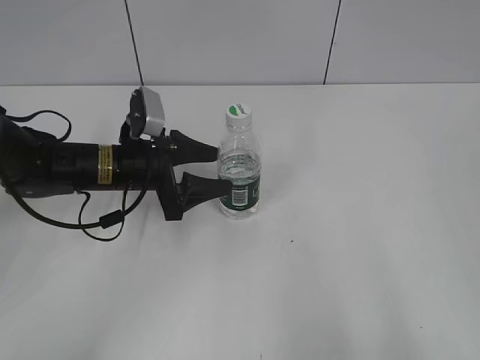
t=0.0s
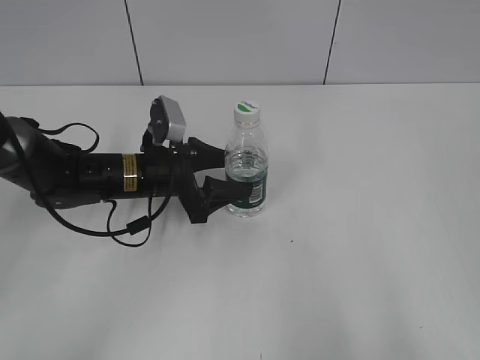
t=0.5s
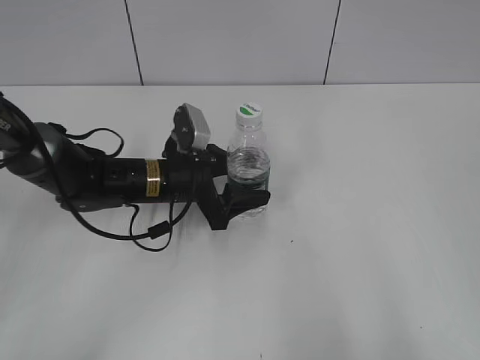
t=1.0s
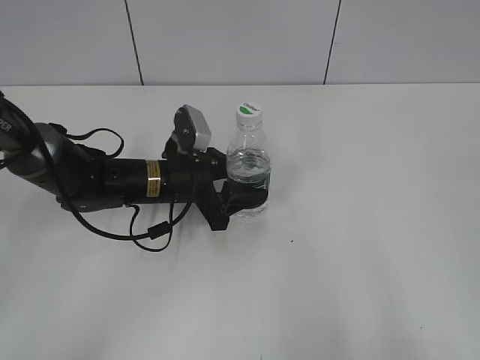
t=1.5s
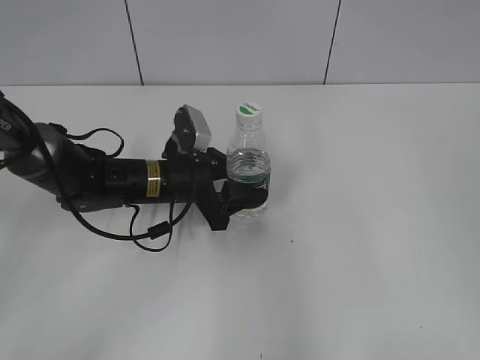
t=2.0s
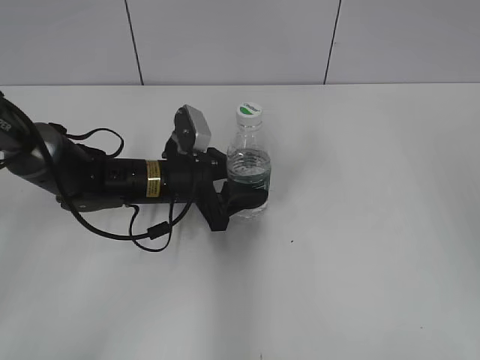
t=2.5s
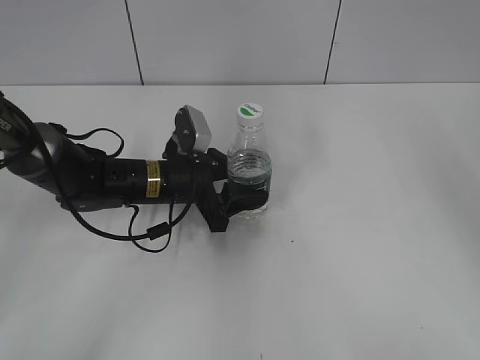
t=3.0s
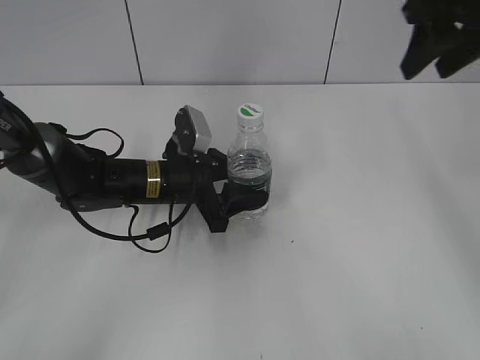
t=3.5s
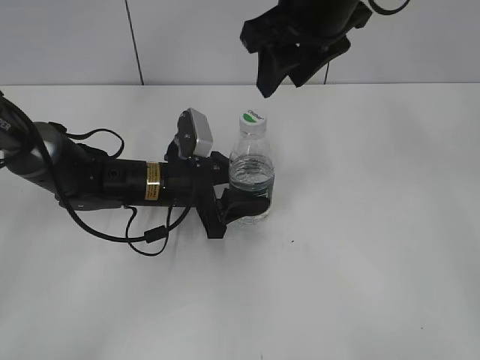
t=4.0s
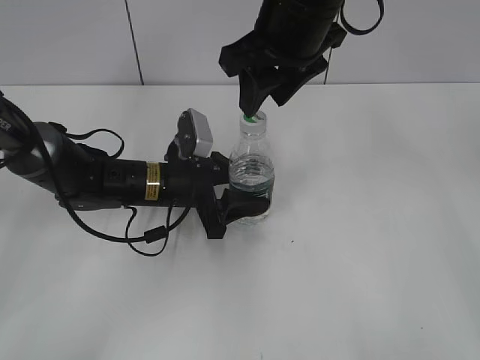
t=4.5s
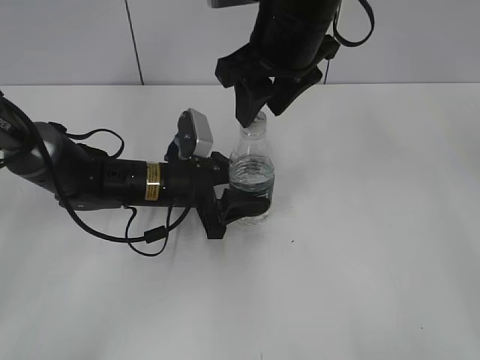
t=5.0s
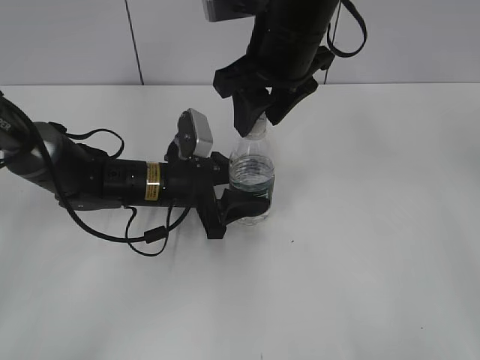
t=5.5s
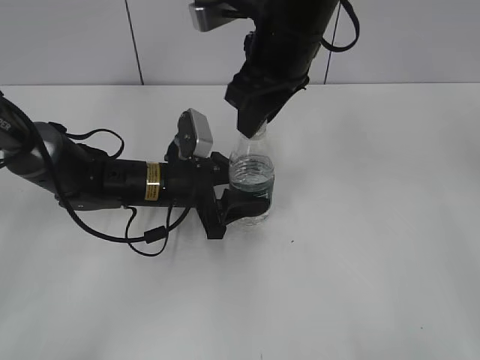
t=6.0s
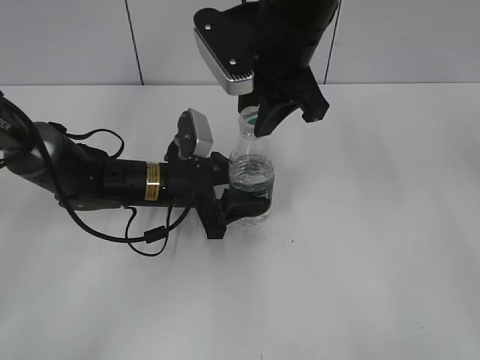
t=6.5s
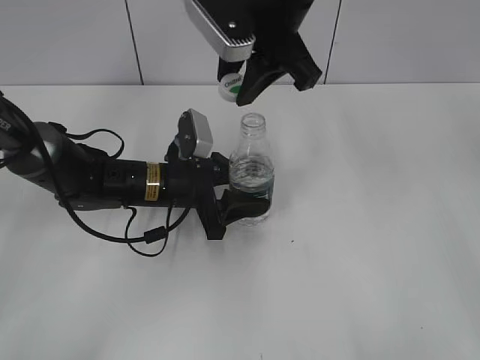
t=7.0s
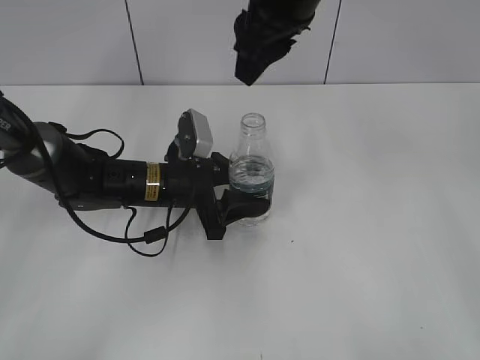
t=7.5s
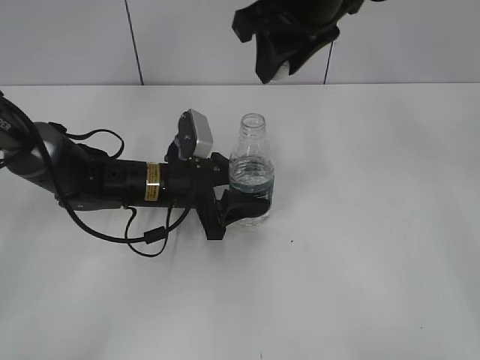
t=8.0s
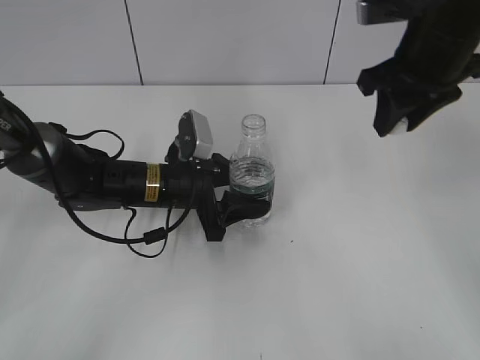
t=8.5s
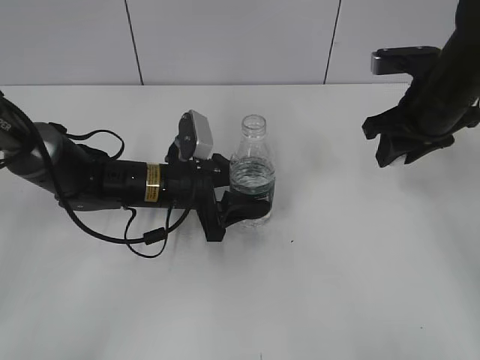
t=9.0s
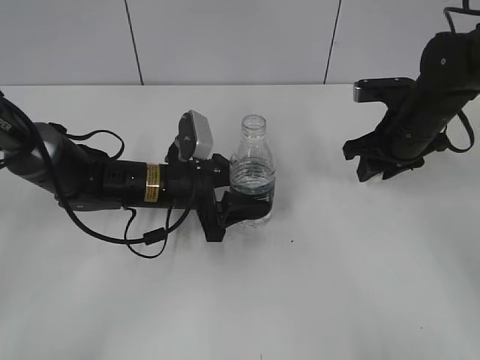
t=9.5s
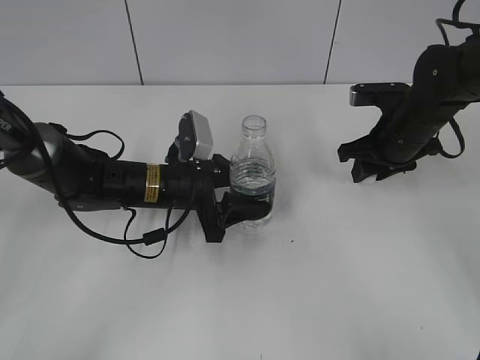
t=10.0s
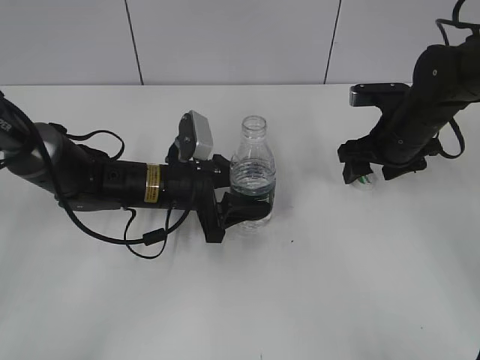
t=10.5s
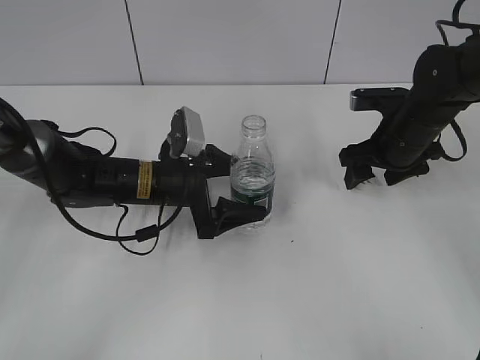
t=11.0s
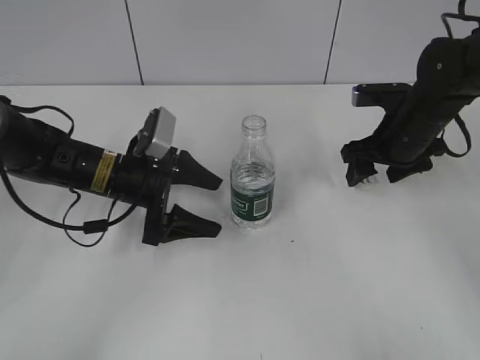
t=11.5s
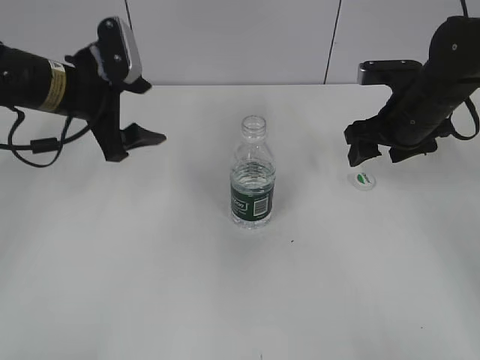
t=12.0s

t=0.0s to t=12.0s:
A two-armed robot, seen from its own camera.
Step, t=0.0s to t=3.0s: Grasp the bottle and move it to the center of the table with the left gripper.
Step, t=3.5s to t=7.0s: Unscrew the bottle cap with the right gripper while holding the bottle with the left gripper.
Step, t=7.5s to t=10.0s: Place the bottle cap on the table with the right gripper.
Step, t=10.5s to t=11.0s: Place the bottle on the table with the left gripper.
t=0.0s to t=2.0s: The right gripper heads forward, covering some 5 cm. The left gripper goes approximately 5 cm to the right, and closes.
t=2.0s to t=4.0s: The right gripper goes about 35 cm forward and to the left, and closes its fingers.
t=4.0s to t=6.0s: The right gripper changes place by some 5 cm.
t=6.0s to t=8.0s: The right gripper shifts about 5 cm upward.
t=8.0s to t=10.0s: The right gripper is displaced downward and to the right by about 25 cm.
t=10.0s to t=12.0s: The right gripper opens; the left gripper shifts about 15 cm upward and to the left, and opens.

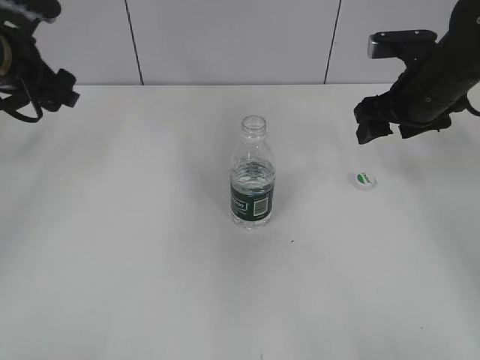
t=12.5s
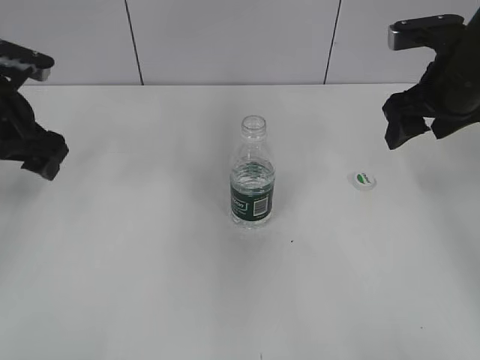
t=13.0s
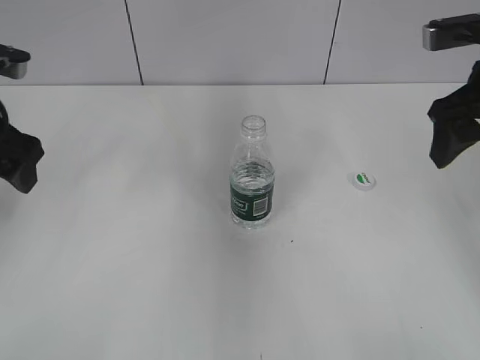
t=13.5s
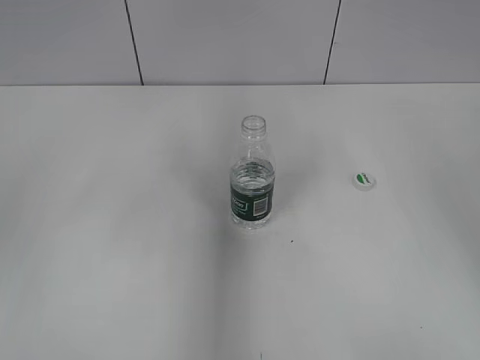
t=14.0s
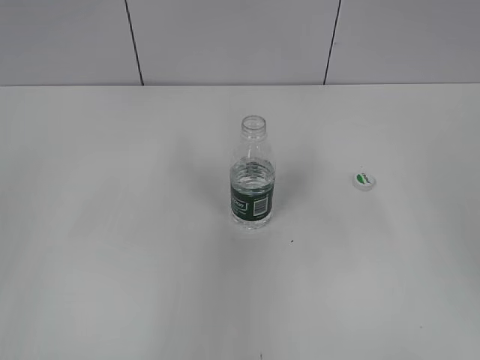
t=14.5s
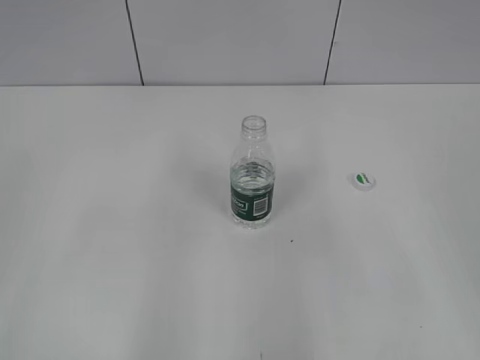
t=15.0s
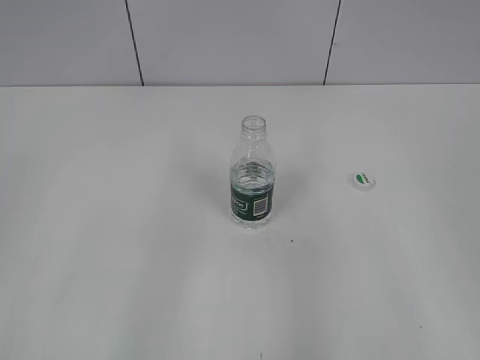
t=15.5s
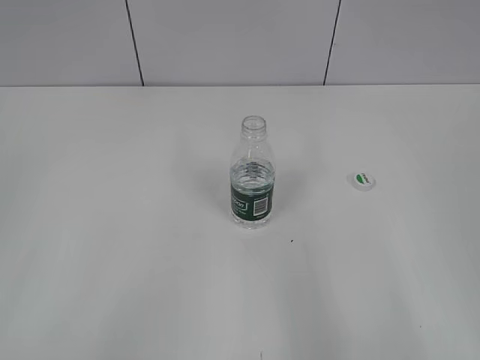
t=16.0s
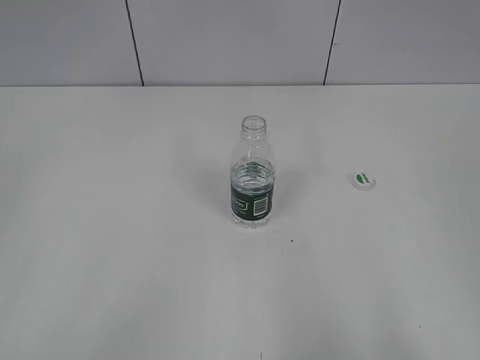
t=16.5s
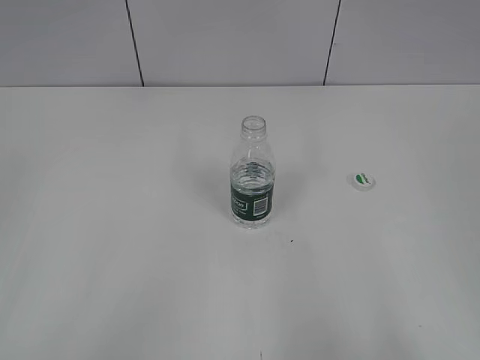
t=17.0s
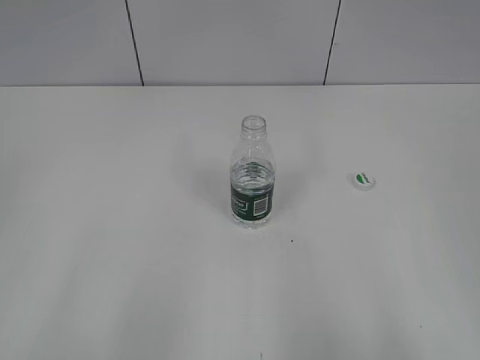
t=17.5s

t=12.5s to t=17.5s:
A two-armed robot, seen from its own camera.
t=12.5s to t=15.0s: Both grippers travel together backward, about 30 cm.

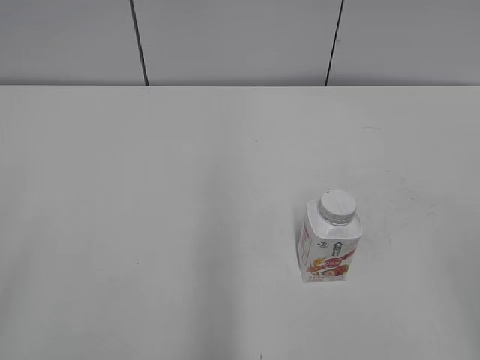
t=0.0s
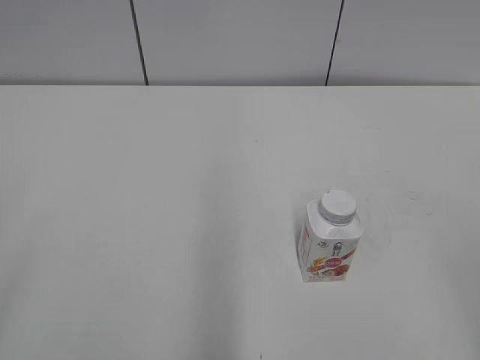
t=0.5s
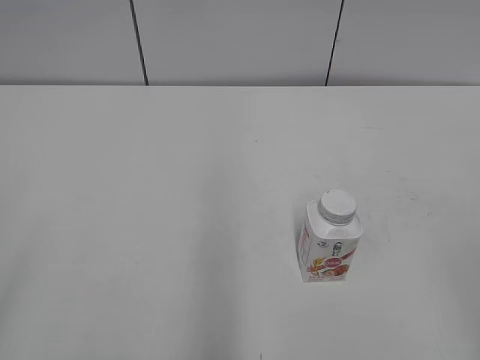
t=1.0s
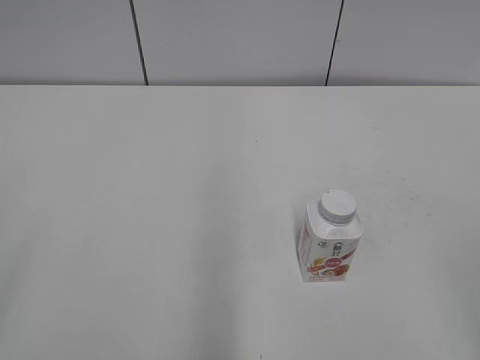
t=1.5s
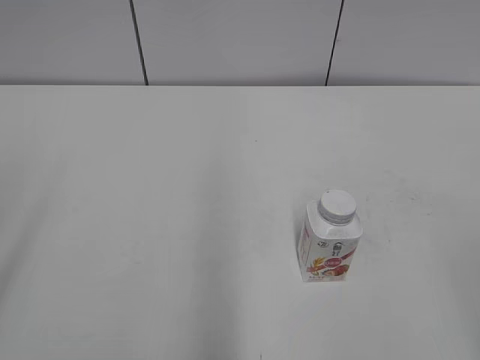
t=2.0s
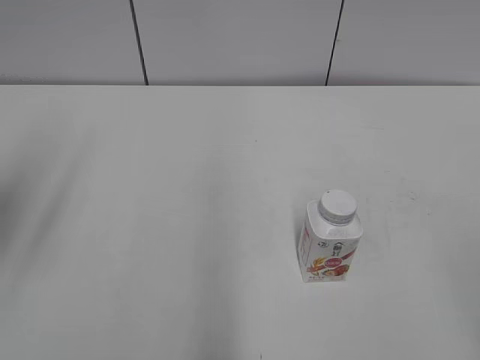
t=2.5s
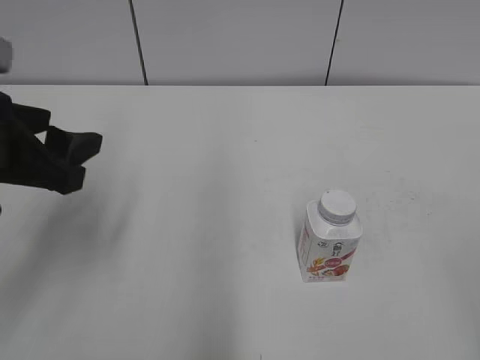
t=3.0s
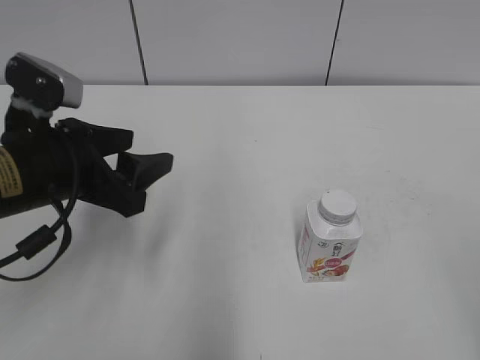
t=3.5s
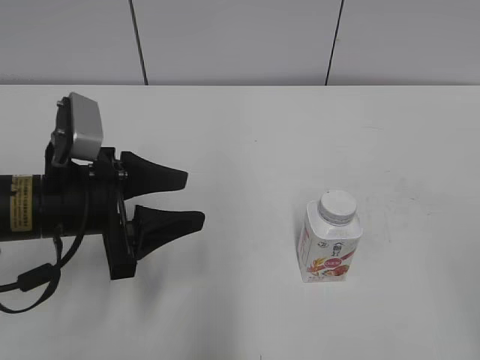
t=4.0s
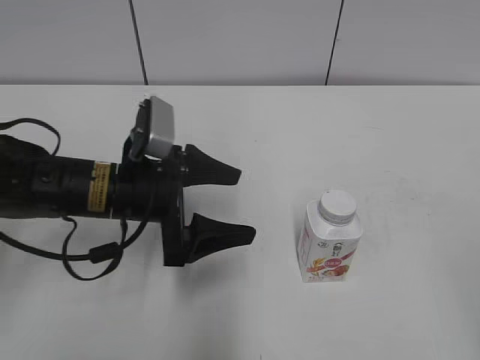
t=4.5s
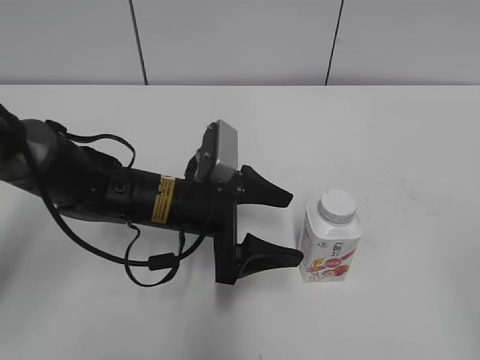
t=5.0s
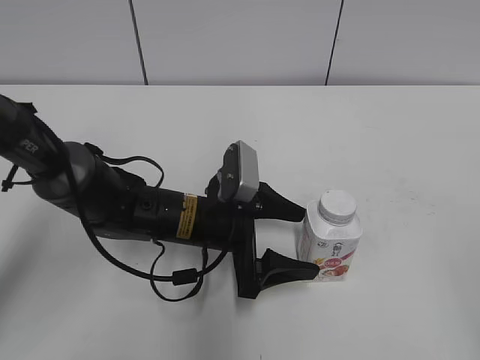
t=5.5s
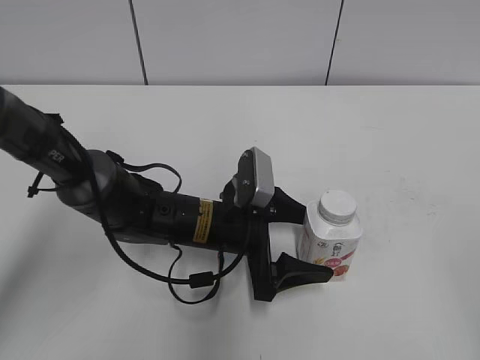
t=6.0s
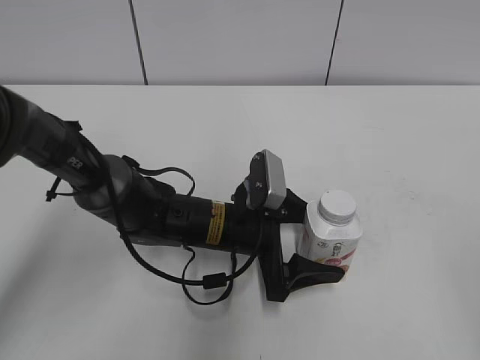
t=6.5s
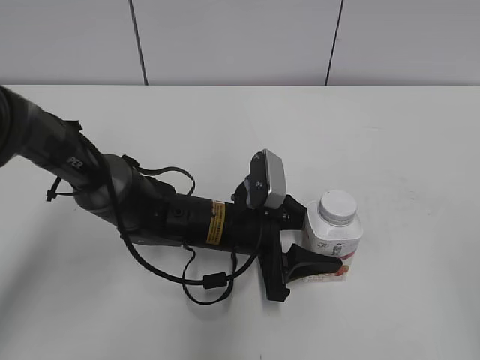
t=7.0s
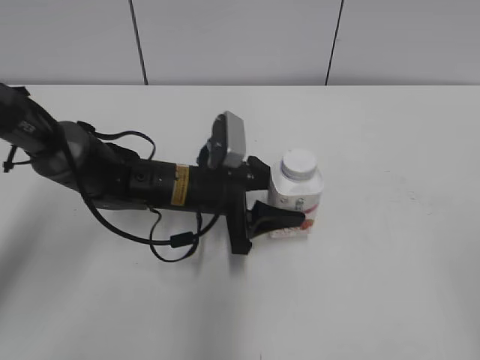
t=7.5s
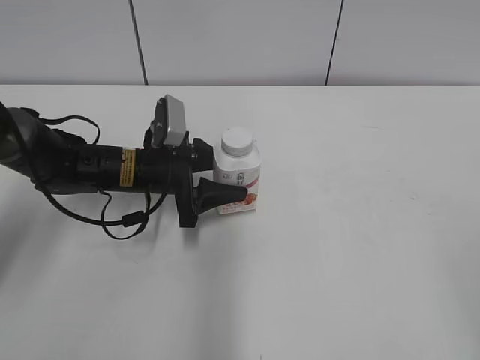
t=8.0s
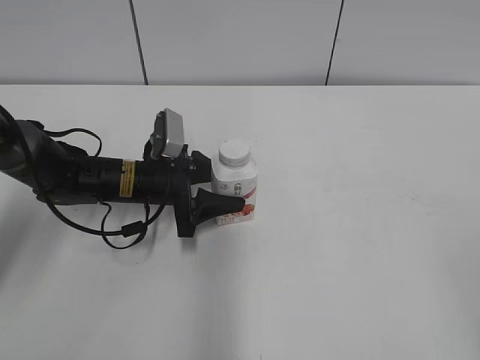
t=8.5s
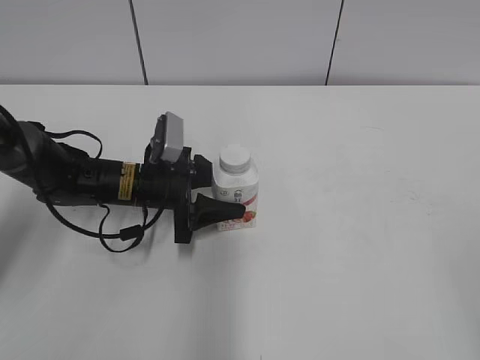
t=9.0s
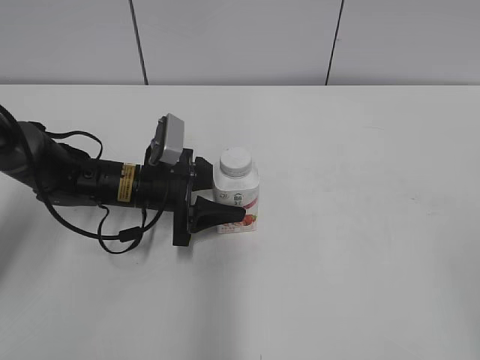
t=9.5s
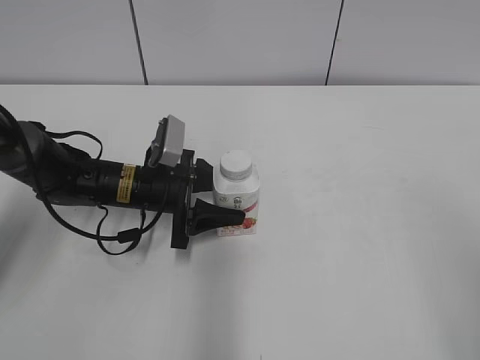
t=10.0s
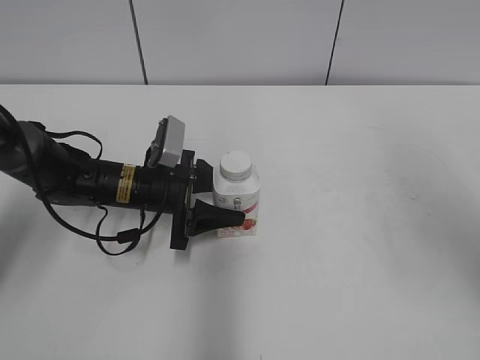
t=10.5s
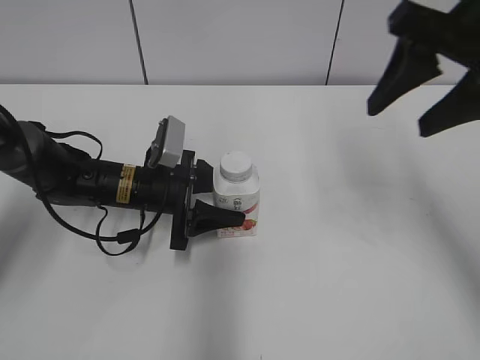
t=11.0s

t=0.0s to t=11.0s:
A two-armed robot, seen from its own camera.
Step, t=0.0s to t=7.0s: Grab the Yili Changqing with the left hand.
Step, t=7.5s to t=10.0s: Move the Yili Changqing from right to left.
t=2.0s to t=3.5s: The left gripper is displaced forward, downward and to the right by about 25 cm.
t=3.5s to t=5.5s: The left gripper travels to the right and downward by roughly 20 cm, and opens.
t=5.5s to t=7.5s: The left gripper closes its fingers.
t=7.5s to t=9.0s: The left gripper heads to the left, covering approximately 10 cm.
t=9.0s to t=11.0s: The right gripper travels forward by some 30 cm.
